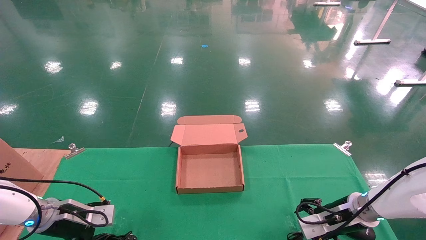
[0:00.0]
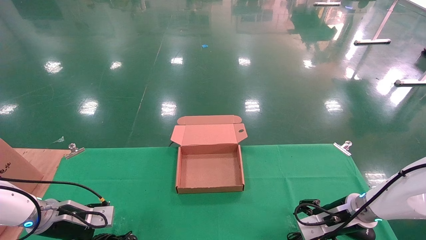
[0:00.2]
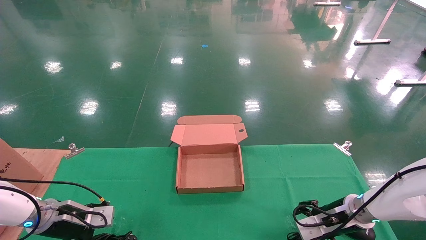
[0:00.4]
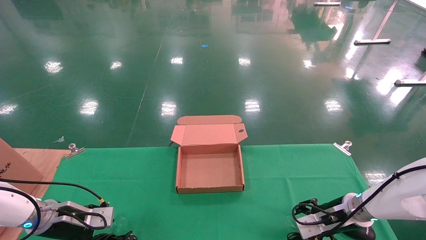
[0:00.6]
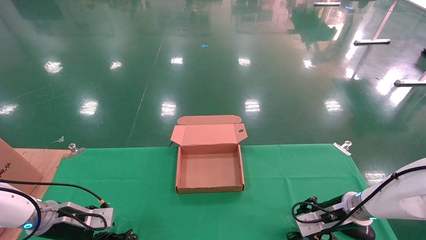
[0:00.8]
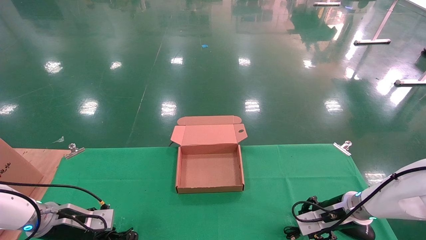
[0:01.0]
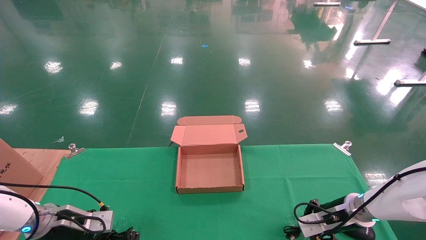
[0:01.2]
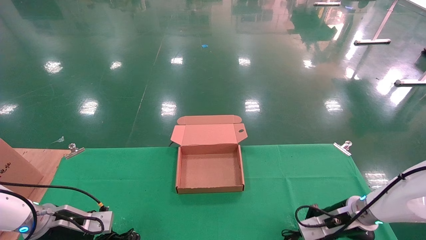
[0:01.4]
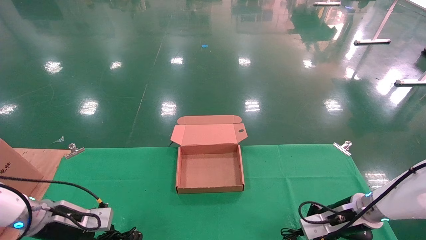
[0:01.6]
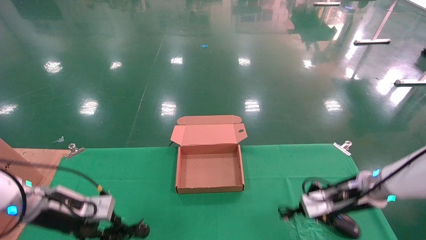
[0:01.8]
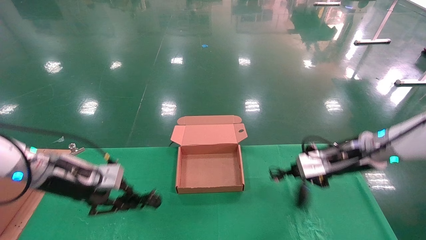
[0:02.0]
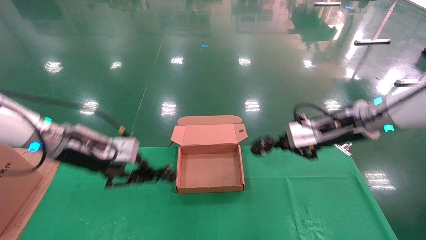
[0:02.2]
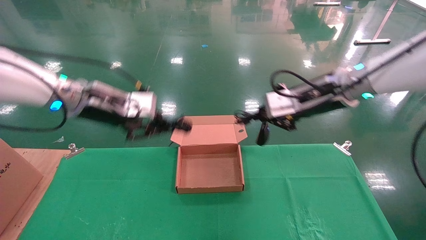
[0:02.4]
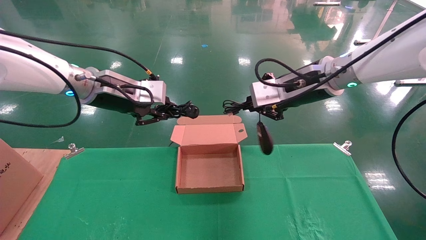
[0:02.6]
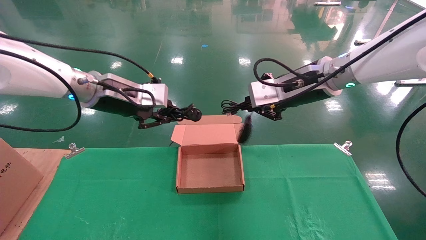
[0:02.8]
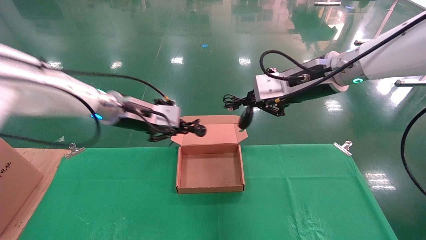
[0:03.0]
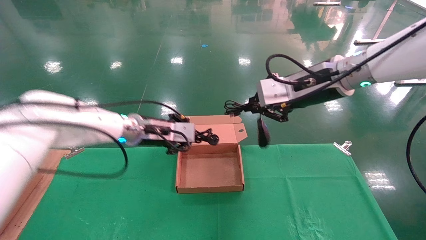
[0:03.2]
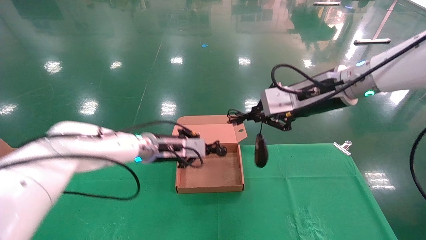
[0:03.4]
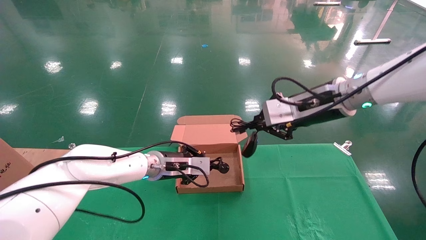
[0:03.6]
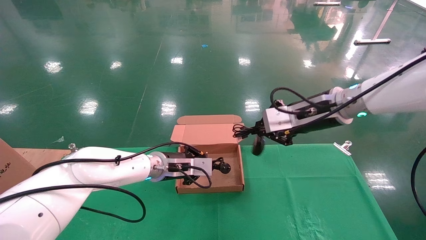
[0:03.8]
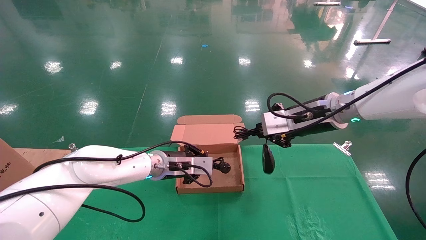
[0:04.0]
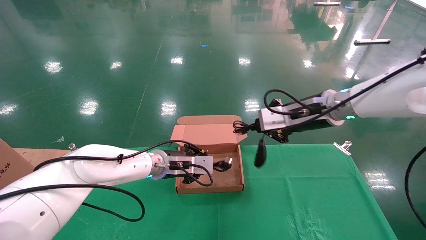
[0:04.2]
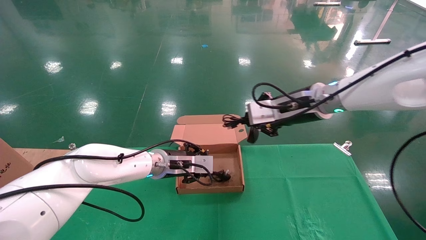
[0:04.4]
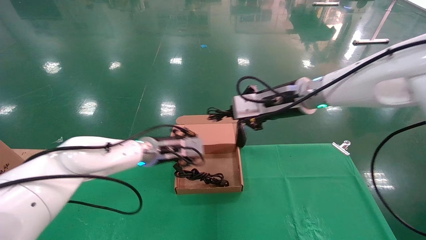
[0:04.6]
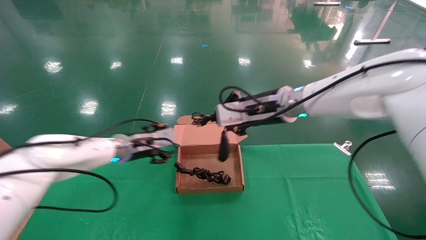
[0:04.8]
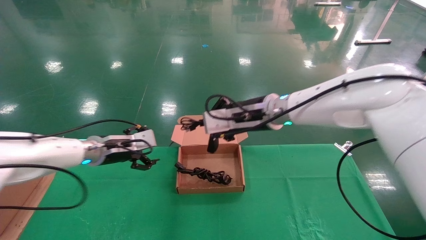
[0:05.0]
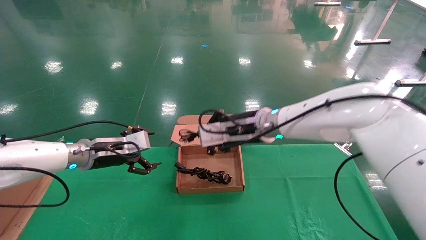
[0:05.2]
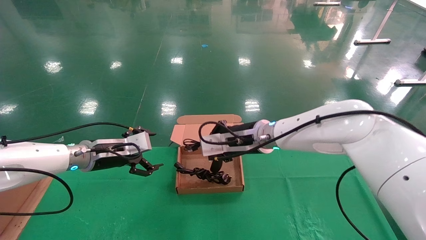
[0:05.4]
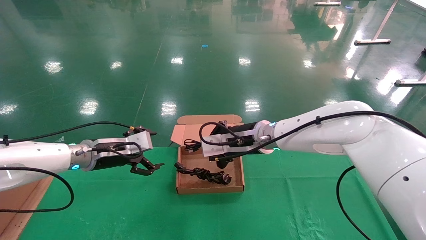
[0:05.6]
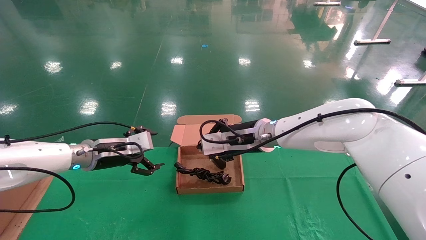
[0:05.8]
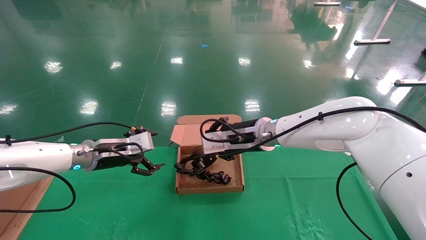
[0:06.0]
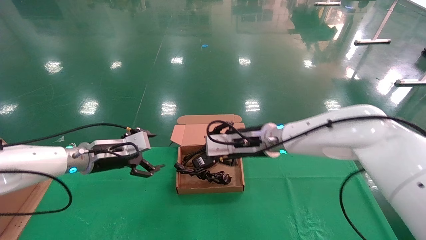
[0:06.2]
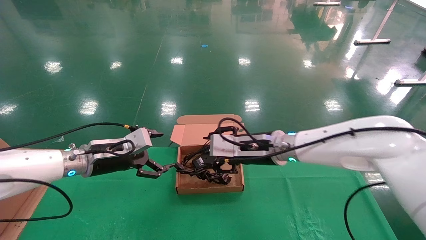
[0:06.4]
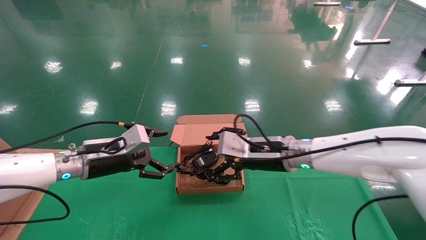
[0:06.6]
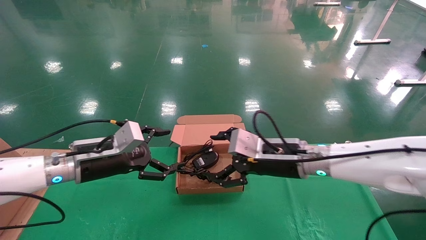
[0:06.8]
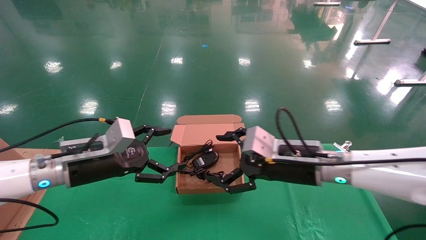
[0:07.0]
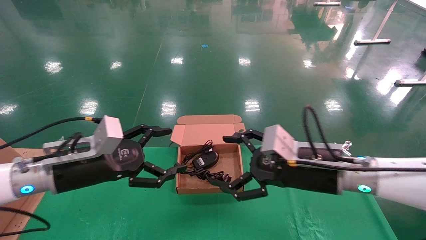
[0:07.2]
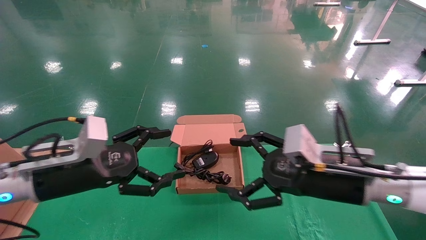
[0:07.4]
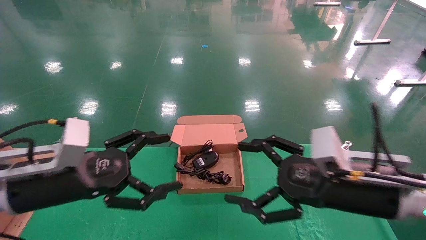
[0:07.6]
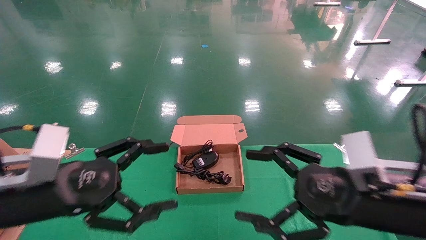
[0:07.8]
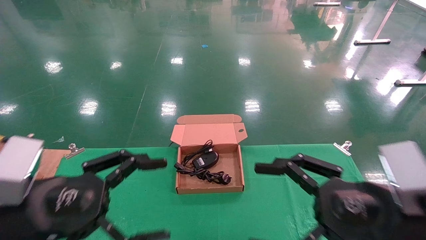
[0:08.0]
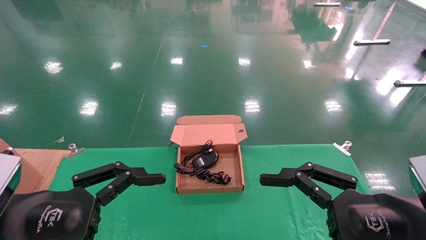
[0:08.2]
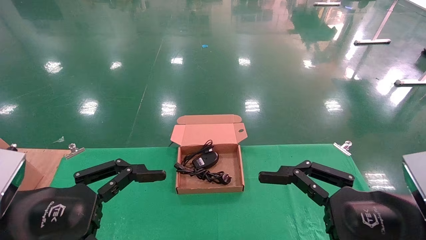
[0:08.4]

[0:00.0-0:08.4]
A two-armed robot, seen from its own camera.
Step, 0:02.0 to 0:07.0: Place the mouse and power cord into the box.
0:00.0 to 0:01.4: The left gripper closes its fingers. The right gripper closes up.
0:01.4 to 0:02.8: The right gripper goes approximately 30 cm upward, while the left gripper moves upward and to the right, approximately 30 cm.
0:02.8 to 0:04.2: The right gripper changes place by approximately 5 cm, while the left gripper is displaced downward and to the right by roughly 20 cm.
0:04.2 to 0:05.6: The right gripper is displaced to the left and downward by some 15 cm; the left gripper goes some 15 cm to the left, and opens its fingers.
0:05.6 to 0:07.0: The left gripper travels backward by roughly 10 cm. Meanwhile the right gripper goes approximately 15 cm backward and to the right, and opens.
0:07.0 to 0:08.4: The left gripper moves backward, roughly 20 cm. The right gripper shifts approximately 20 cm backward and to the right.
